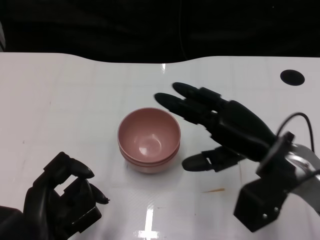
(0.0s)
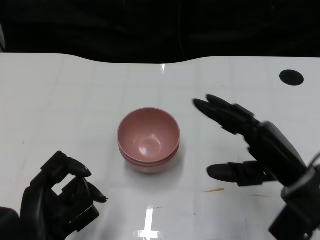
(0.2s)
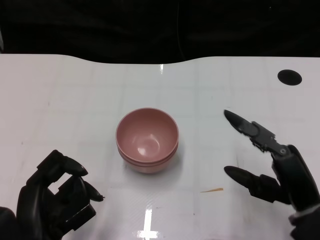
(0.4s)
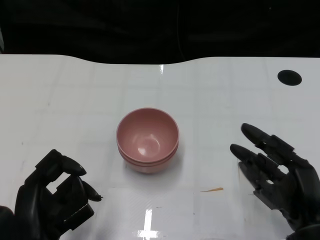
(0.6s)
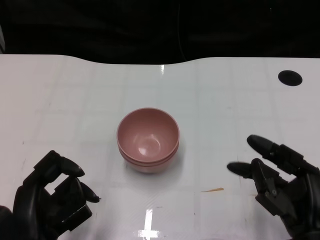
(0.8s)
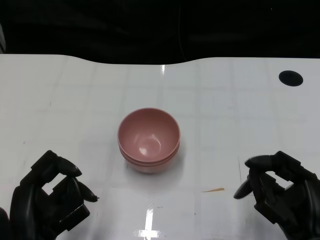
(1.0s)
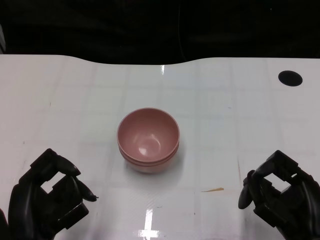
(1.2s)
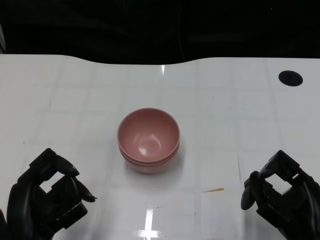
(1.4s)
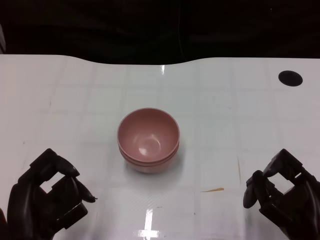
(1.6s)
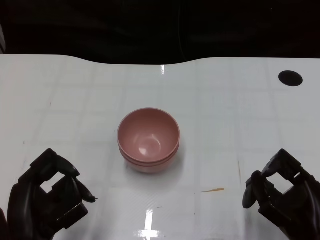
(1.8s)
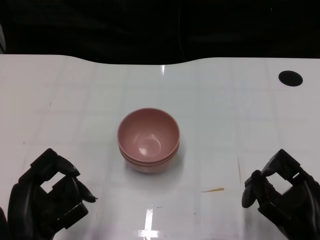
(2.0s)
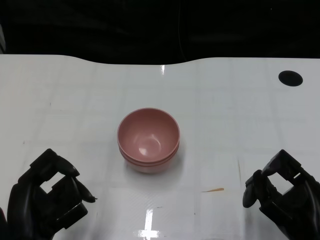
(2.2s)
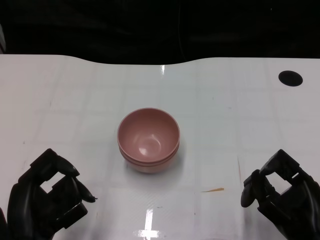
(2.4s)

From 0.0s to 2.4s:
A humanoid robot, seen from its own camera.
Task of the whole recording: Pick up the bowl on one side of the table and place it on top of the middle bowl, then pick up the bowl on the other side of the table and place it on top of the middle bowls.
From 0.0s to 1.2s: The right hand travels backward and downward by approximately 15 cm.
From 1.2s to 2.4s: The hands make only small movements.

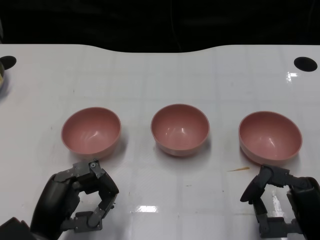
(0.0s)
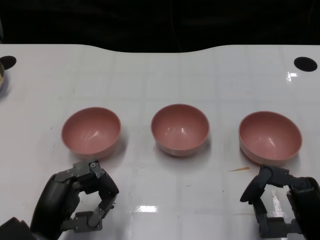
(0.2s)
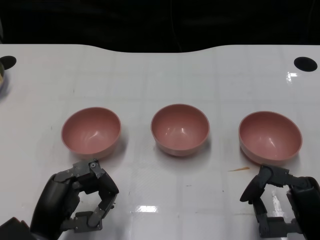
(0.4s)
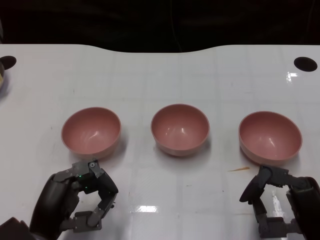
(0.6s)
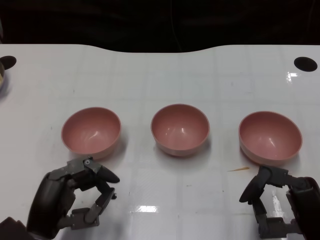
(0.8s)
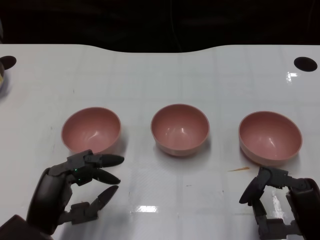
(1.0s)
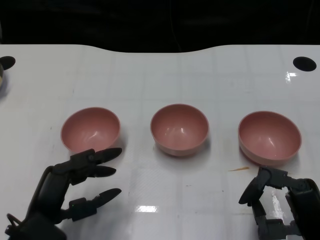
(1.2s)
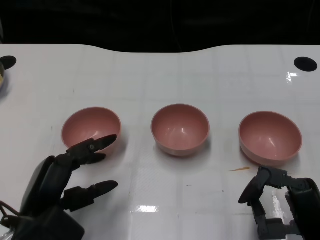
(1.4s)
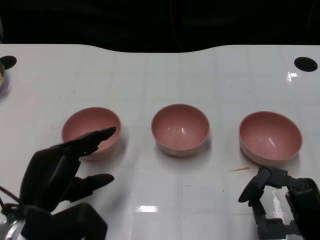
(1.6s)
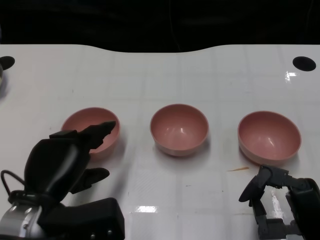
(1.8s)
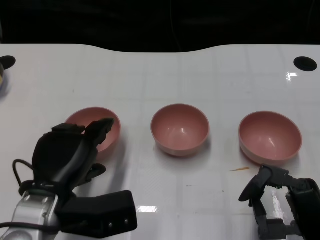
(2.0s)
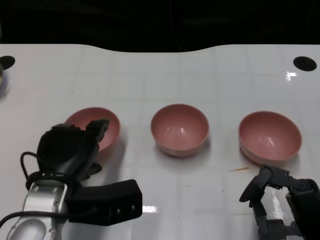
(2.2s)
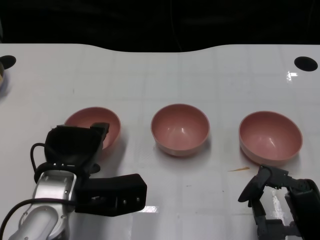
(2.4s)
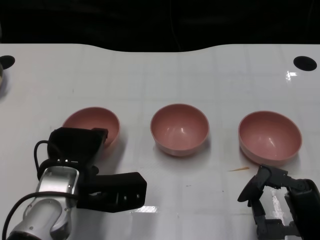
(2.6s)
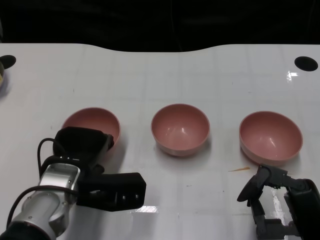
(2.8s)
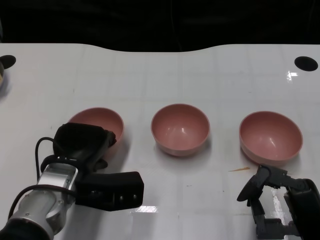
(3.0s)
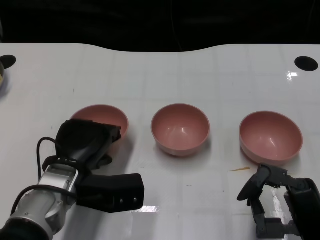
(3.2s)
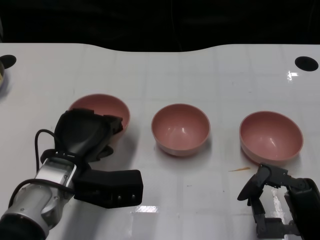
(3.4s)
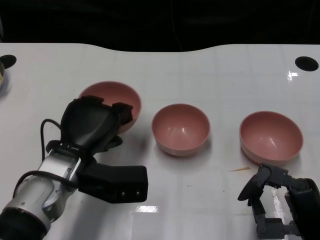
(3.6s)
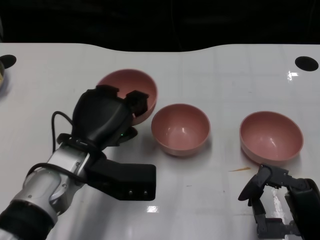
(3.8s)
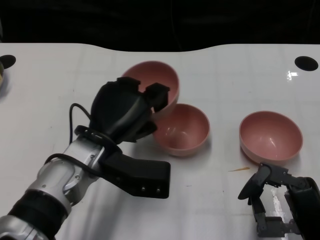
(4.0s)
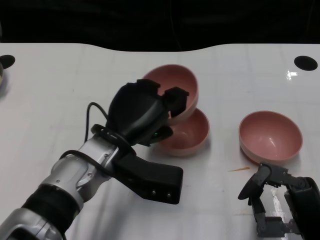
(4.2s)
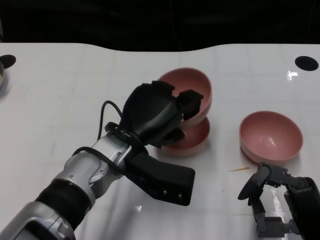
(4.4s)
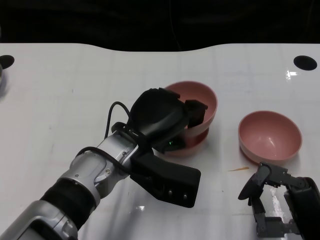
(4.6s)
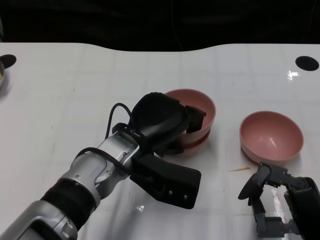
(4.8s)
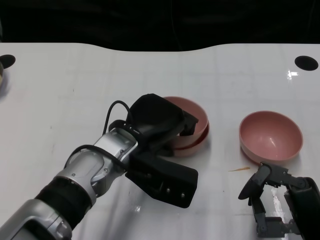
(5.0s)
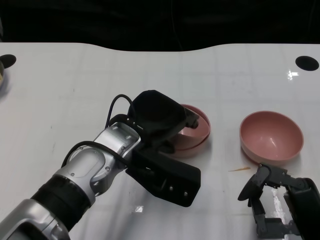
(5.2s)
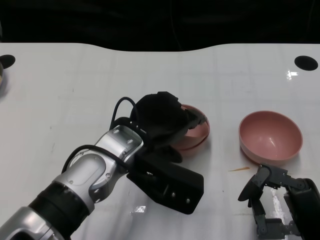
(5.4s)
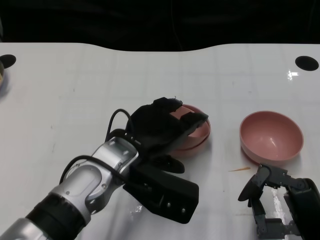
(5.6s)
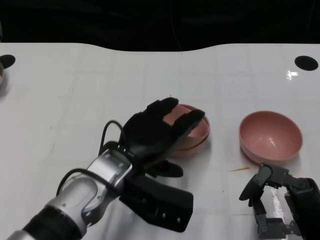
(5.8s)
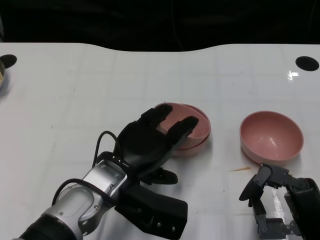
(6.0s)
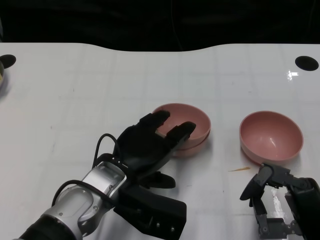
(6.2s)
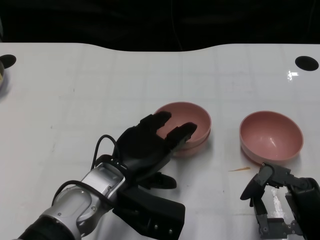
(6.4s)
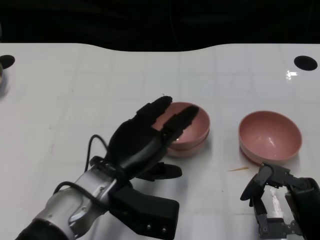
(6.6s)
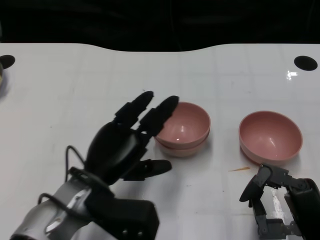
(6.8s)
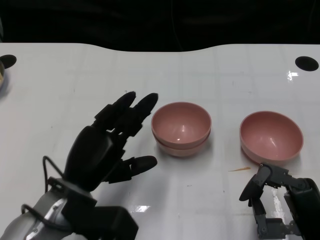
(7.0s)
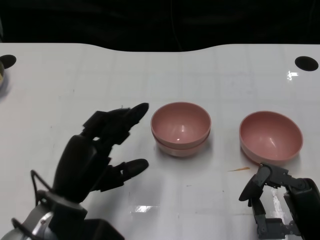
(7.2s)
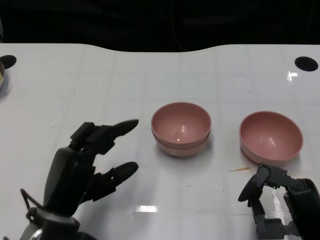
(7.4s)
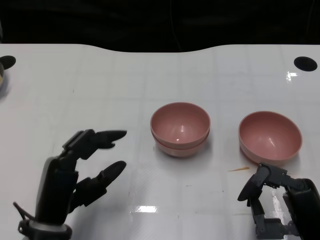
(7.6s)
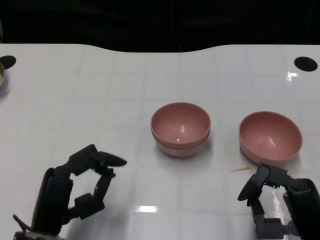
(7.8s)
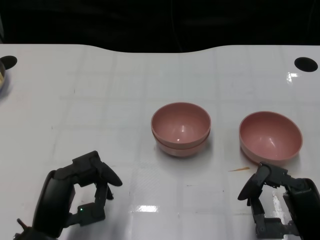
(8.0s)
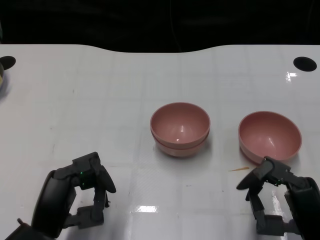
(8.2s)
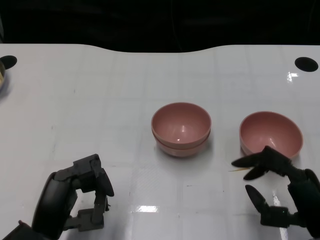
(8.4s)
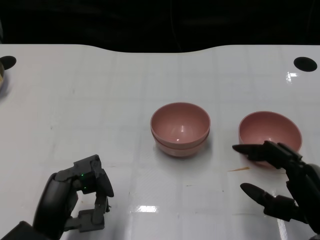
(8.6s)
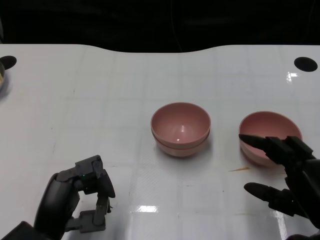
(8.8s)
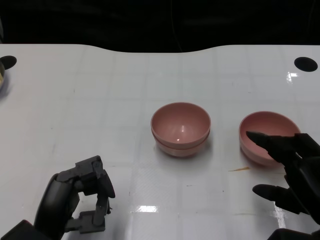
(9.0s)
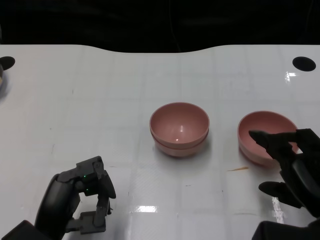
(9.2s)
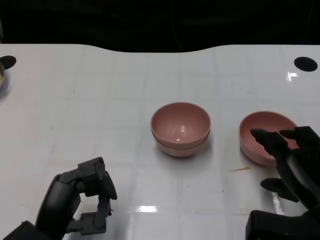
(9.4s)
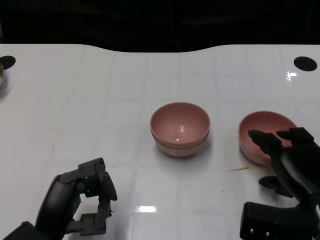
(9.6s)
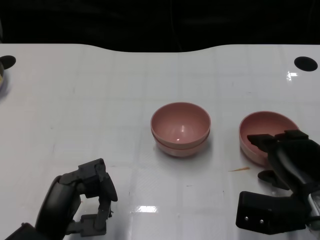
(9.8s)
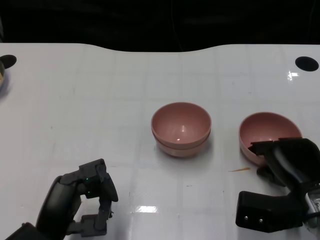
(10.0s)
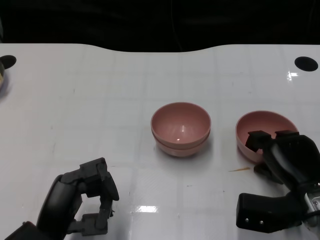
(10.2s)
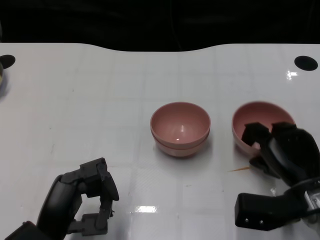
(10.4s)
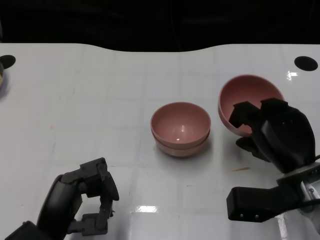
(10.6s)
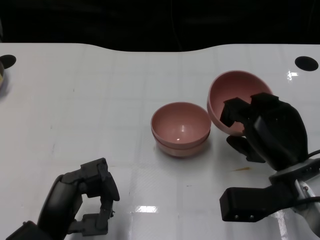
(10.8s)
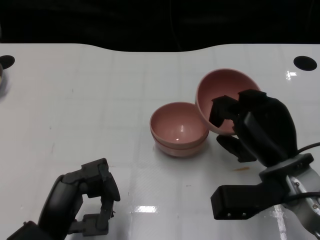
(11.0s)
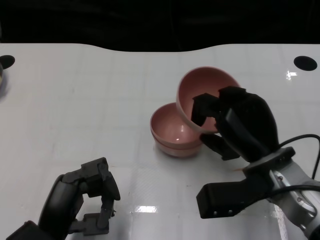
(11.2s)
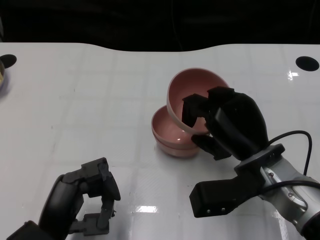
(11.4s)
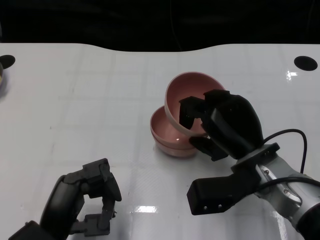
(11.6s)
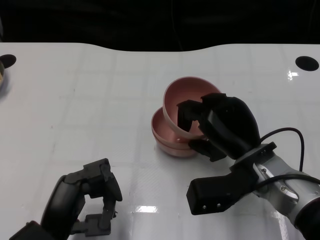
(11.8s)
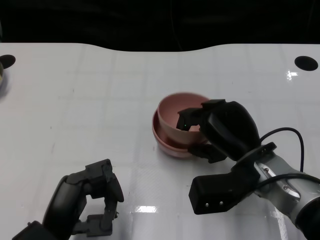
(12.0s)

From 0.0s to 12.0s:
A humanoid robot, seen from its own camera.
Task of the whole recording: Pick up the bowl on one side of the table and place it on top of the middle bowl, then pick up the bowl on the other side of the table and place it on top of the middle bowls.
Step, from 0.8s to 3.0s: Grasp the bowl on the left with the left gripper.
Step, from 3.2s to 6.6s: Place the bowl on the left onto the bowl in the middle with left gripper.
Step, from 6.8s to 10.2s: Grasp the bowl on the right with the right gripper.
From 1.6s to 3.0s: The left hand shifts approximately 10 cm forward.
From 3.0s to 4.4s: The left hand shifts roughly 10 cm to the right.
From 6.0s to 7.6s: The left hand travels to the left and backward by roughly 10 cm.
From 9.0s to 10.4s: The right hand shifts some 5 cm forward.
From 10.4s to 12.0s: The right hand moves to the left, some 10 cm.

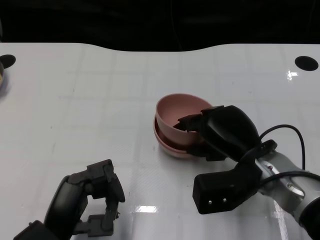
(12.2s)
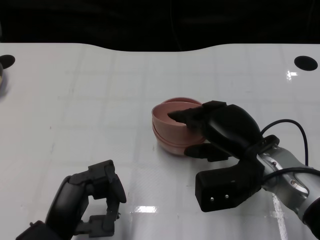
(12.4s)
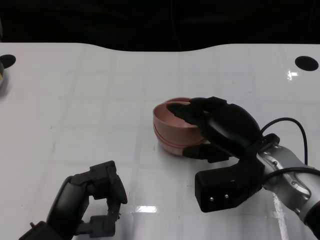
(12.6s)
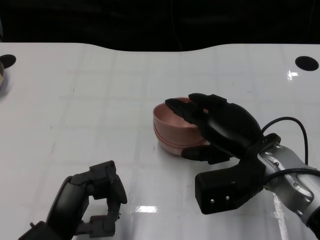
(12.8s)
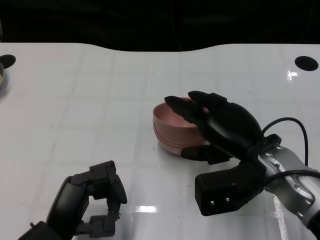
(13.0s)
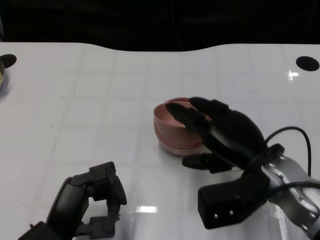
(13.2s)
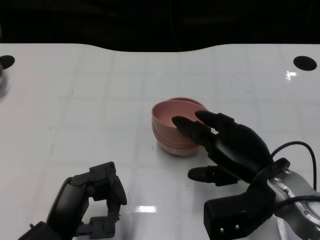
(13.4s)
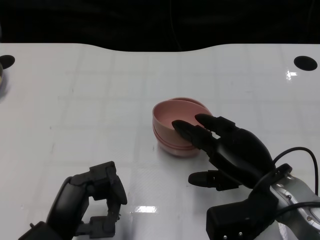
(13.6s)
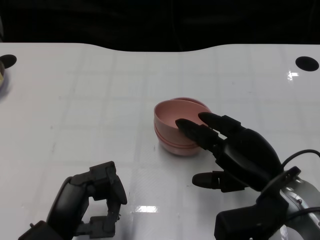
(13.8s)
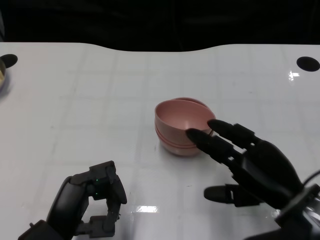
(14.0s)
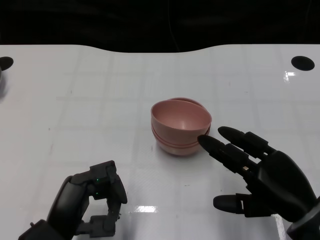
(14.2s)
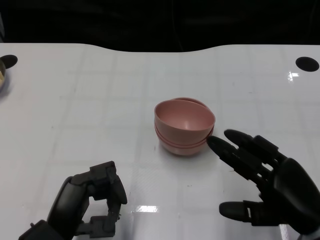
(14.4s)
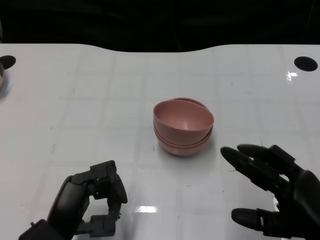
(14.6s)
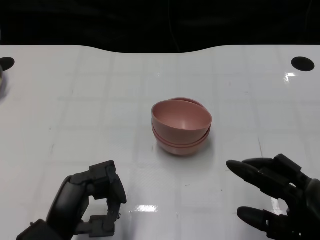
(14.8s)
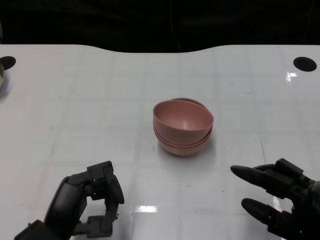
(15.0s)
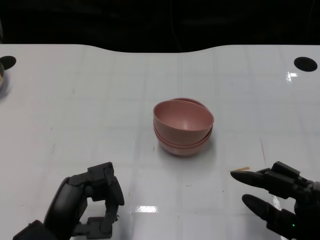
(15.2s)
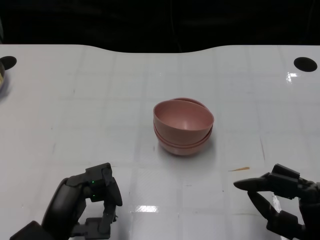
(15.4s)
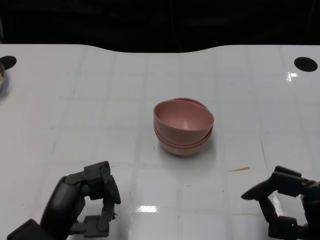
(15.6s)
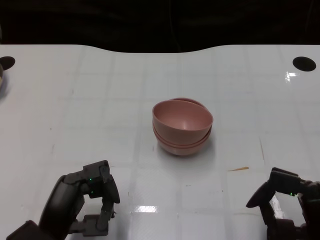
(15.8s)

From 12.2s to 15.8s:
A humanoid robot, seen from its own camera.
Task of the whole recording: Pick up the bowl on one side of the table and place it on top of the middle bowl, then pick up the bowl on the other side of the table and place it on top of the middle bowls.
Step, from 12.2s to 14.0s: Place the bowl on the right onto the bowl in the middle with right gripper.
From 12.2s to 14.0s: The right hand shifts some 10 cm backward and to the right.
From 14.0s to 15.8s: The right hand moves backward, approximately 5 cm.

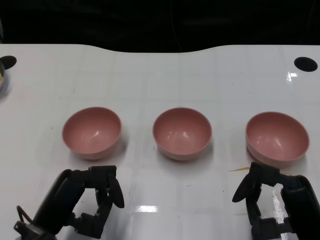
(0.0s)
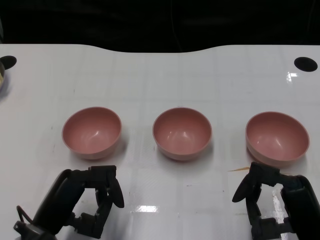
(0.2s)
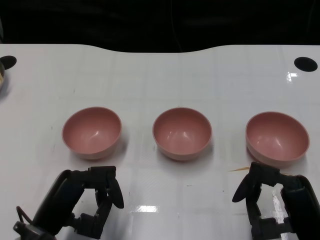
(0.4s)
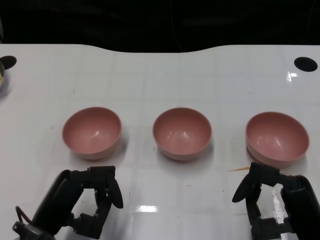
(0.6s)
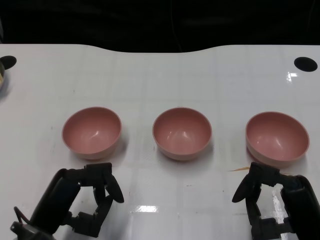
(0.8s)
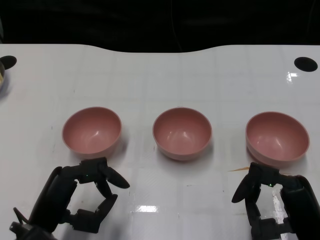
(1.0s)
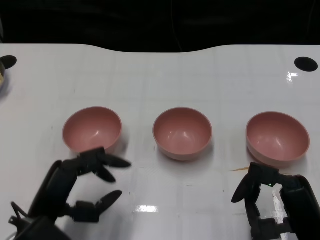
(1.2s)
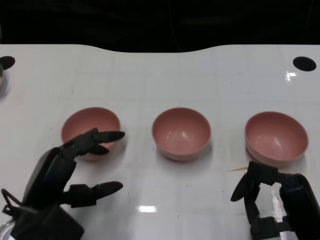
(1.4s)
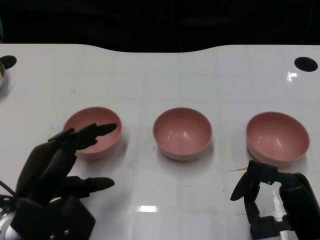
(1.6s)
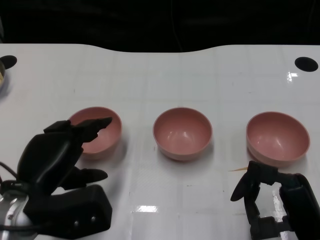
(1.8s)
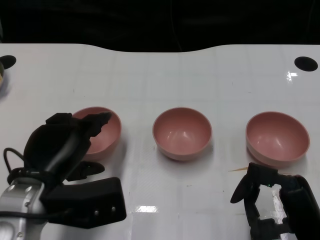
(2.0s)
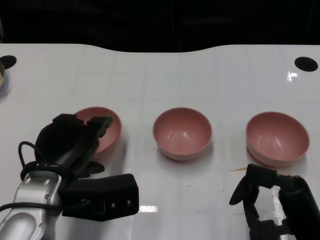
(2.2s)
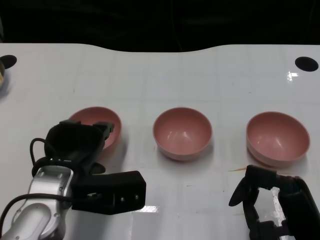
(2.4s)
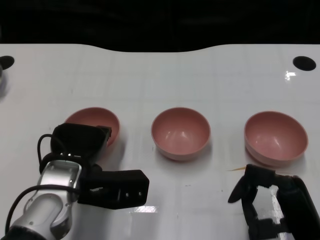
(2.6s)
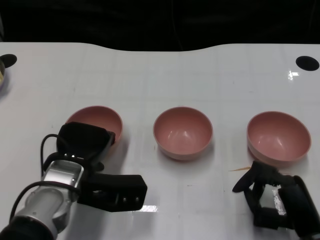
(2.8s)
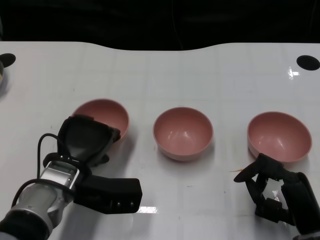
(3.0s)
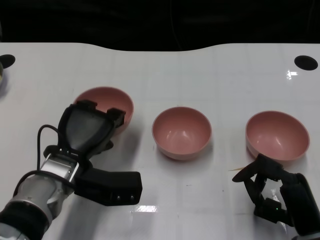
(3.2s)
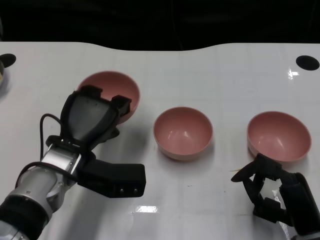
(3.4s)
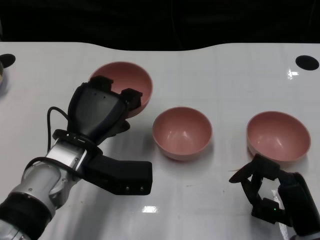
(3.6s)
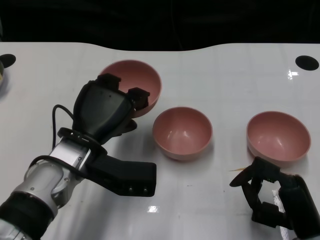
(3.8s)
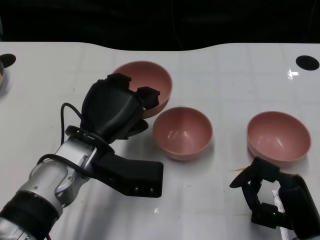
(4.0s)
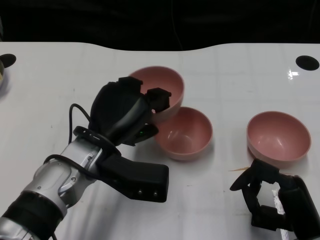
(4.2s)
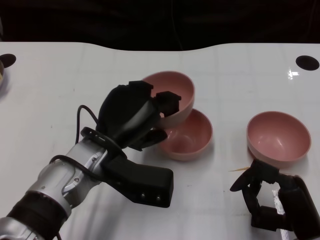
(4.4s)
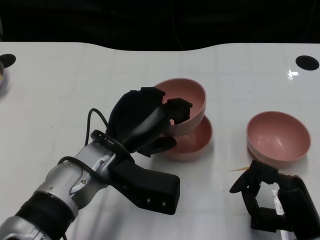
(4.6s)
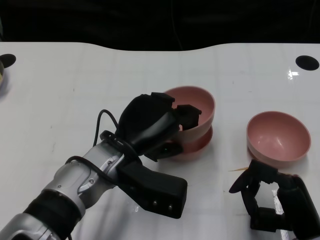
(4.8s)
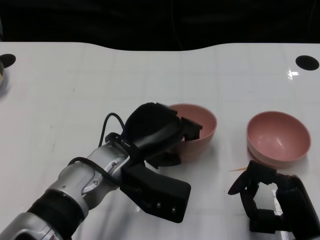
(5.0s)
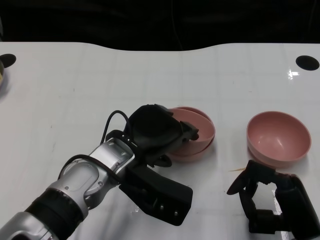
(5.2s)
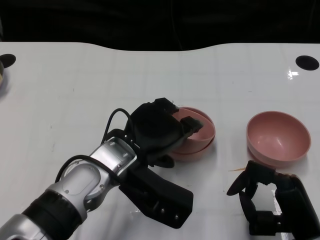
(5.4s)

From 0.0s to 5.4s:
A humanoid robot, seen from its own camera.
Task of the whole recording: Pick up the bowl on one side of the table and place it on top of the middle bowl, then pick up the bowl on the other side of the table and place it on top of the middle bowls.
Step, from 1.0s to 3.0s: Grasp the bowl on the left with the left gripper.
From 1.4s to 2.8s: The left hand is displaced forward and to the right by approximately 10 cm.
From 2.8s to 4.0s: The left hand shifts by approximately 5 cm.
